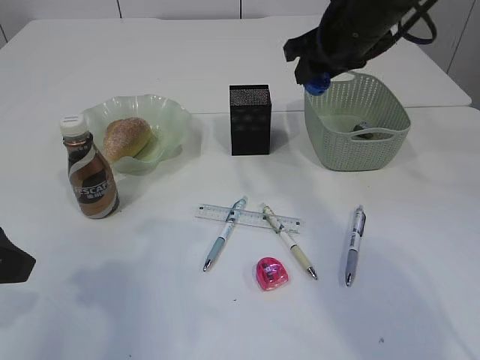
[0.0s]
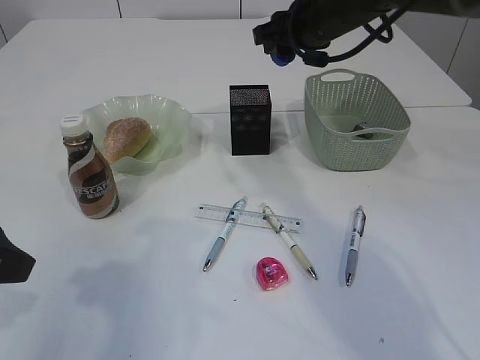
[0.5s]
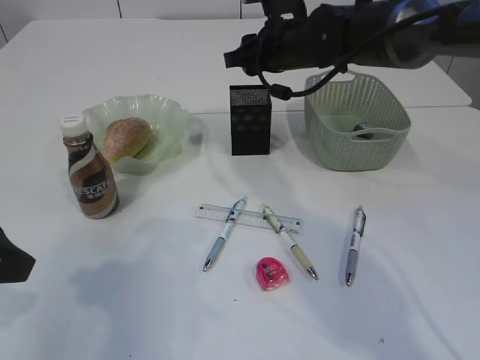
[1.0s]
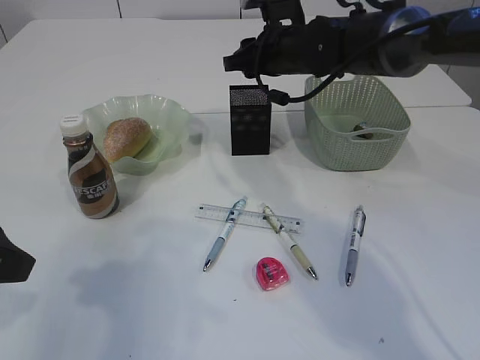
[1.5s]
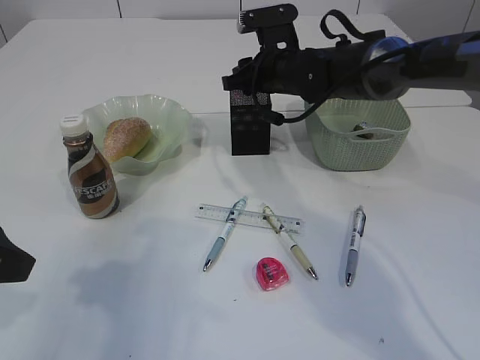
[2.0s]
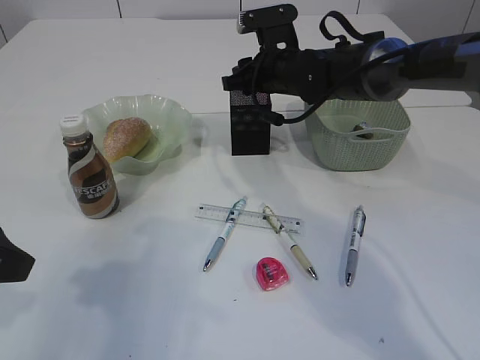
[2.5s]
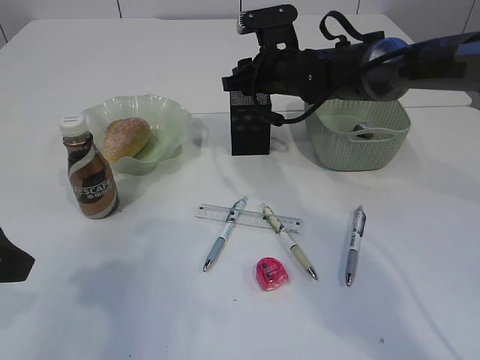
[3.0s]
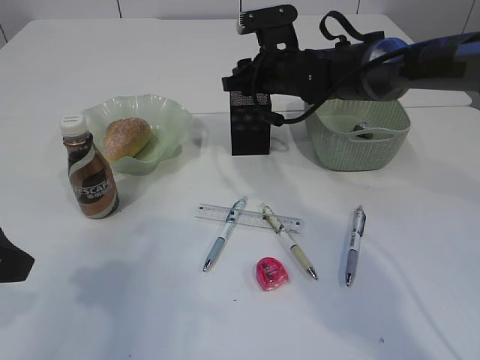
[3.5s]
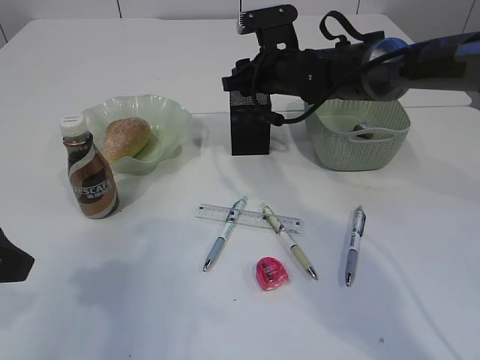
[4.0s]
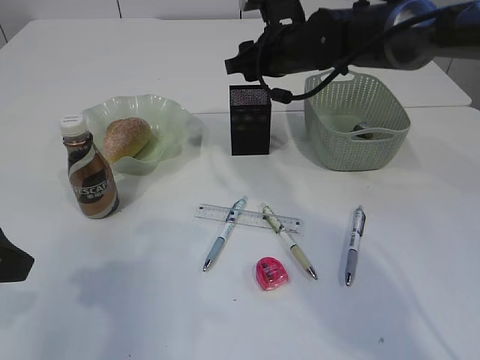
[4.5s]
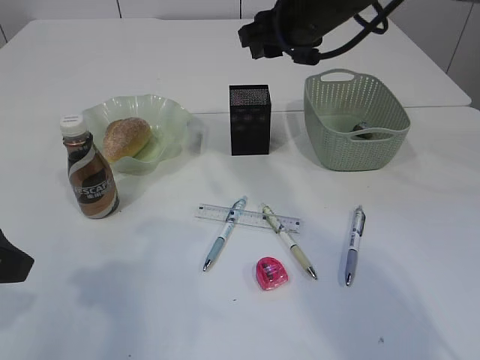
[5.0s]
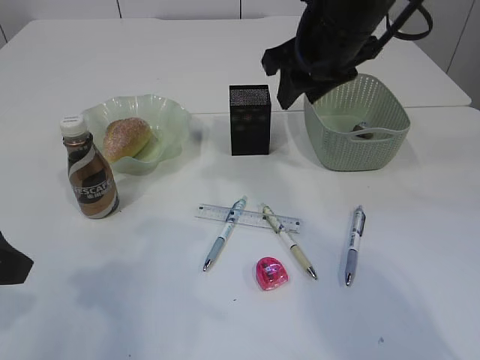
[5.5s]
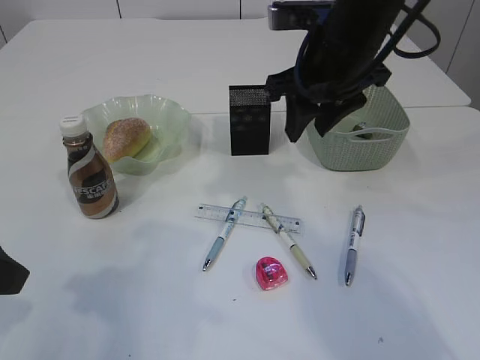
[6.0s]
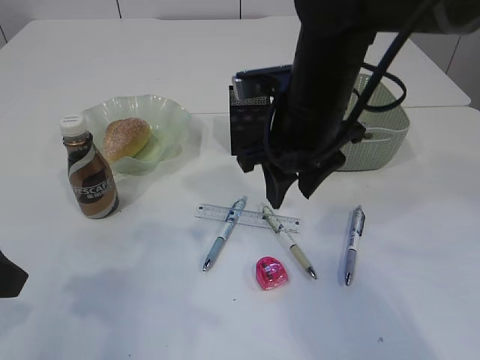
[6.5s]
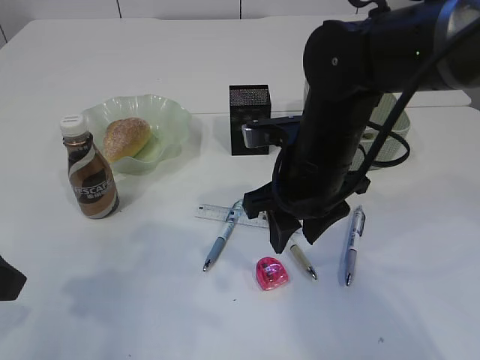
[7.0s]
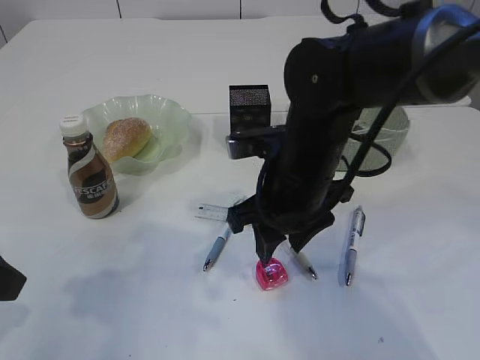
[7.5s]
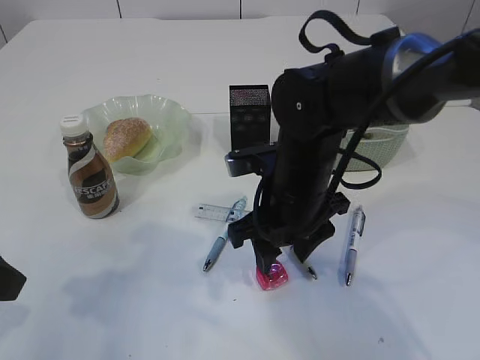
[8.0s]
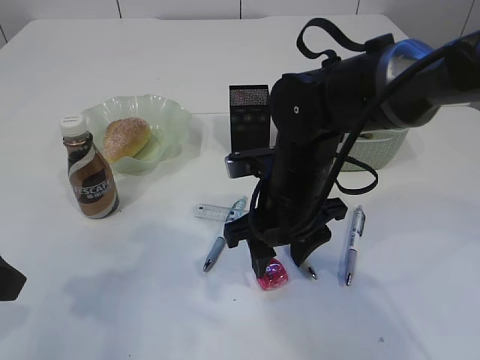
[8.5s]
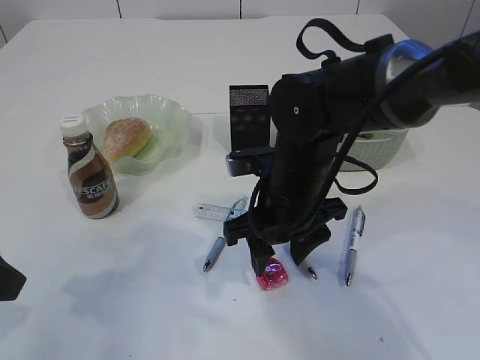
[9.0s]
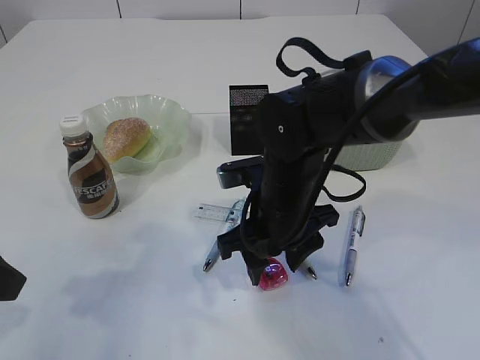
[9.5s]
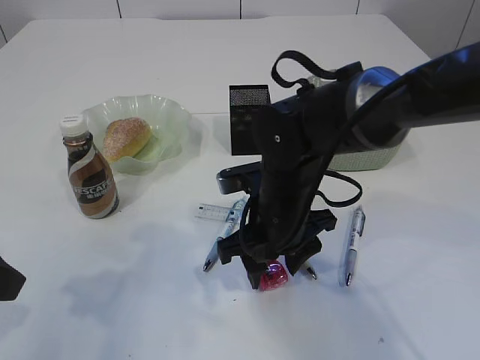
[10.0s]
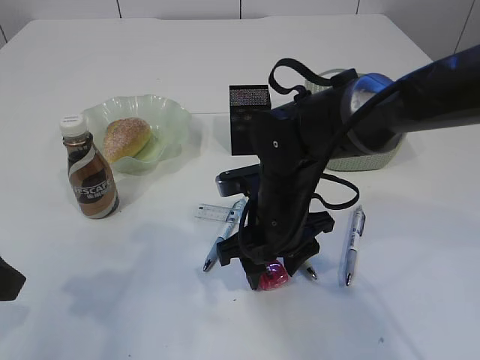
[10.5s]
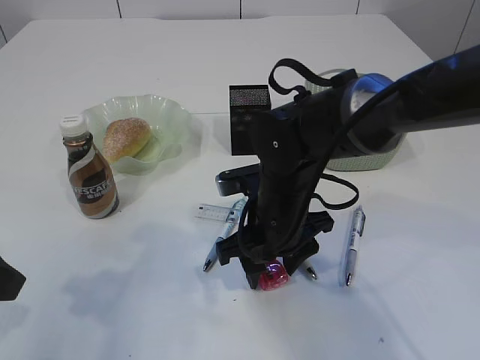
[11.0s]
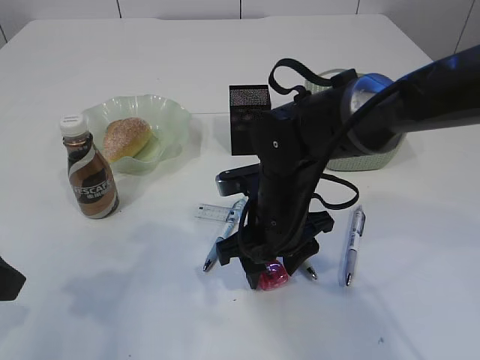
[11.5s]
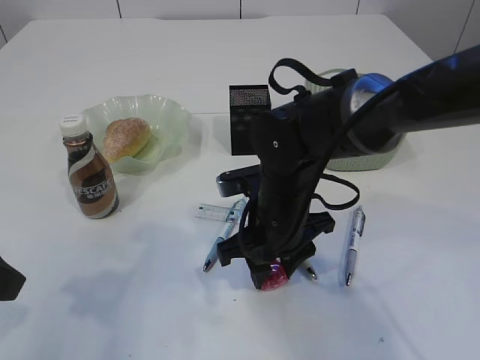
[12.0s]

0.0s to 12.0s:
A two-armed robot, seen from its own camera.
Step, 0.0s to 4.5s: Place the blue pencil sharpener into the pen holder.
0.0s to 2.0s: The right gripper moves downward, to the left and forward, approximately 15 cm.
2.0s to 4.0s: Neither gripper changes place.
4.0s to 6.0s: The right gripper is displaced backward and upward by roughly 15 cm.
6.0s to 8.0s: The right gripper goes some 15 cm downward, backward and to the left.
8.0s to 10.0s: The grippers stay close to where they were, moving slightly.
10.0s to 12.0s: Neither gripper changes place.

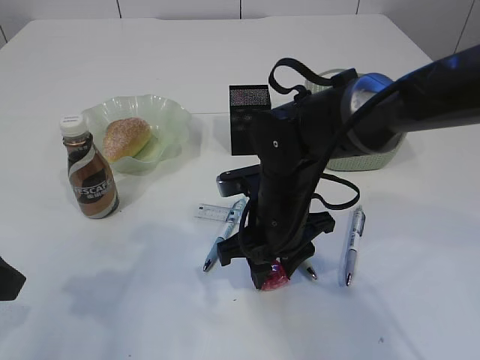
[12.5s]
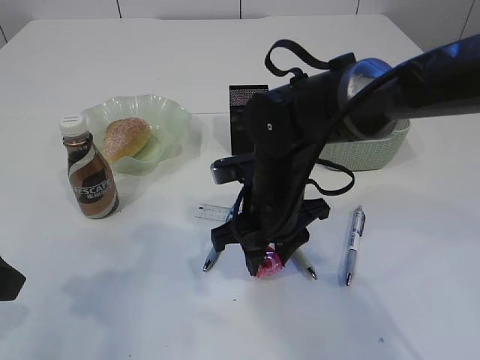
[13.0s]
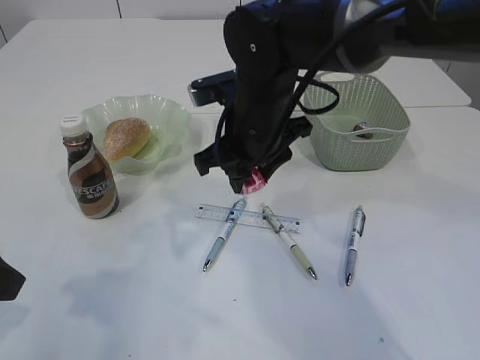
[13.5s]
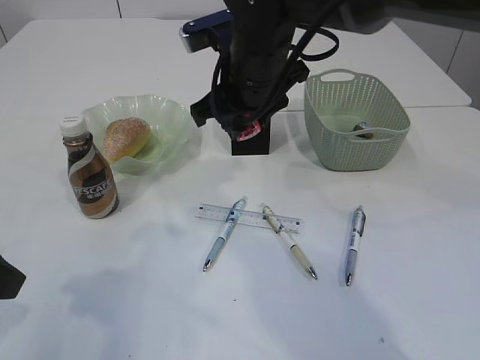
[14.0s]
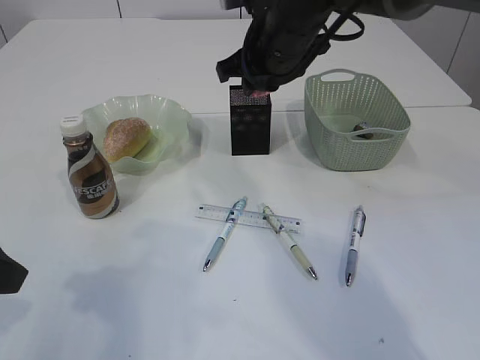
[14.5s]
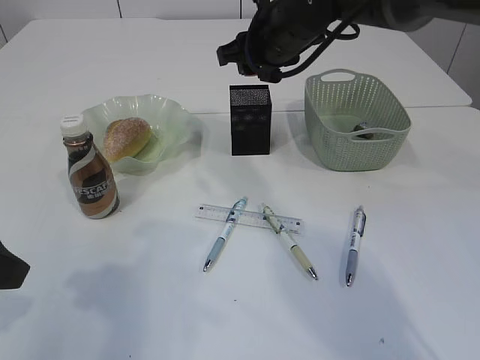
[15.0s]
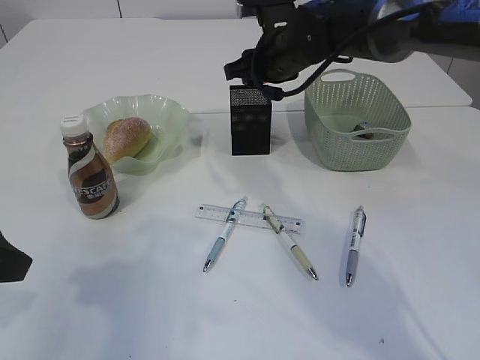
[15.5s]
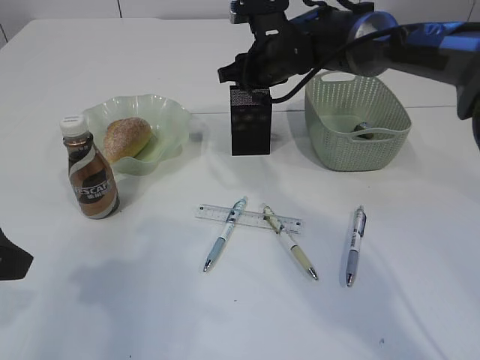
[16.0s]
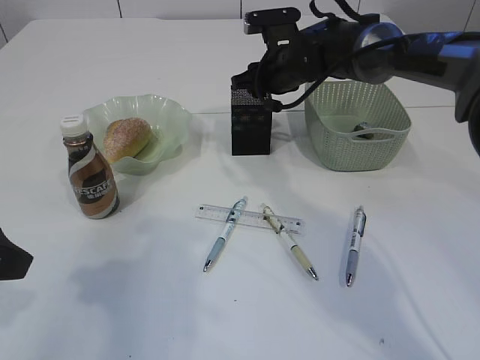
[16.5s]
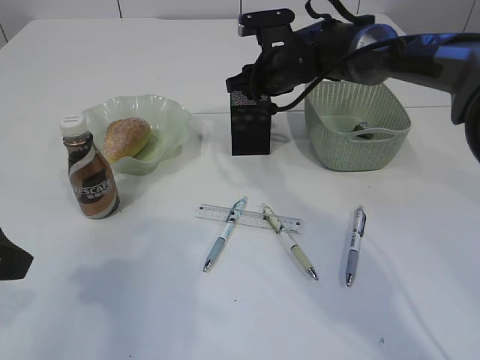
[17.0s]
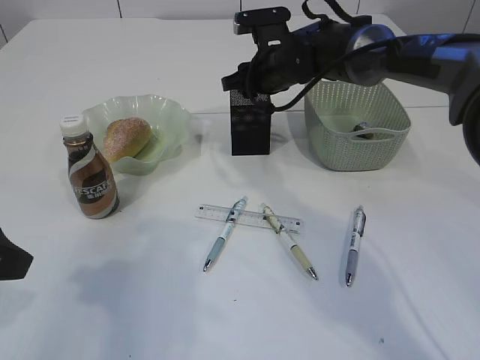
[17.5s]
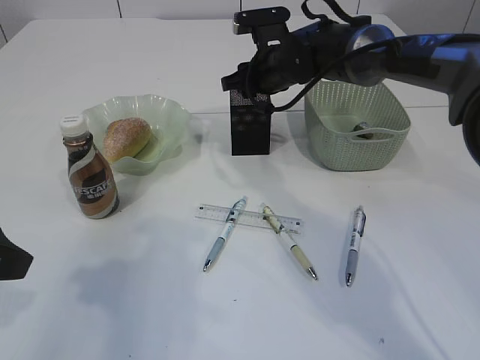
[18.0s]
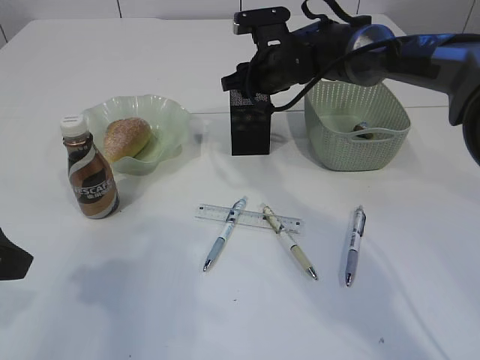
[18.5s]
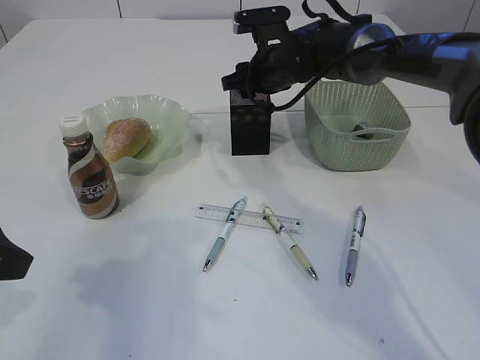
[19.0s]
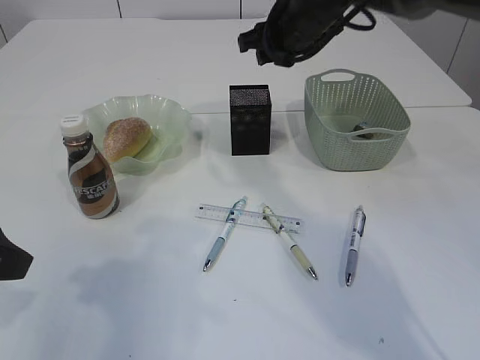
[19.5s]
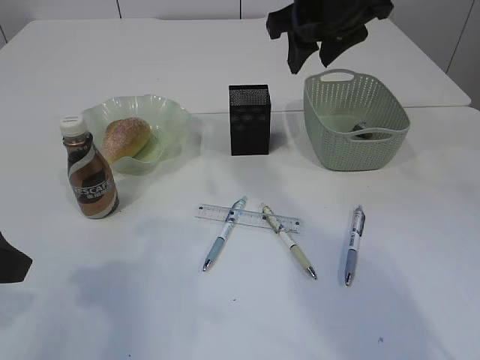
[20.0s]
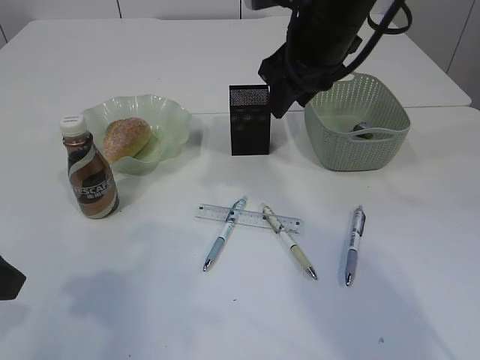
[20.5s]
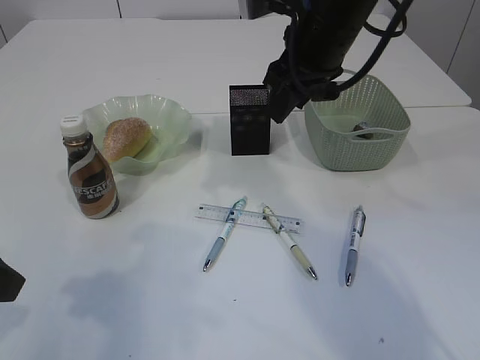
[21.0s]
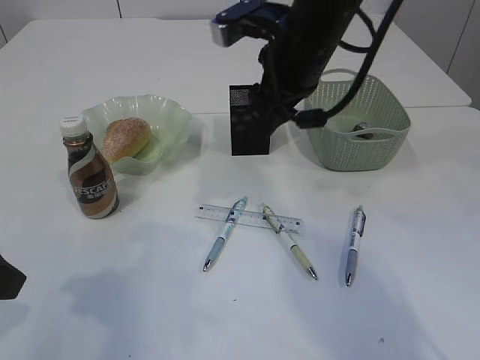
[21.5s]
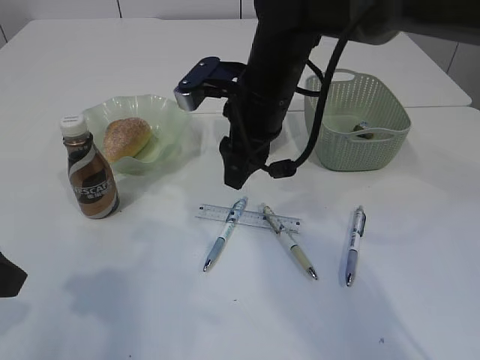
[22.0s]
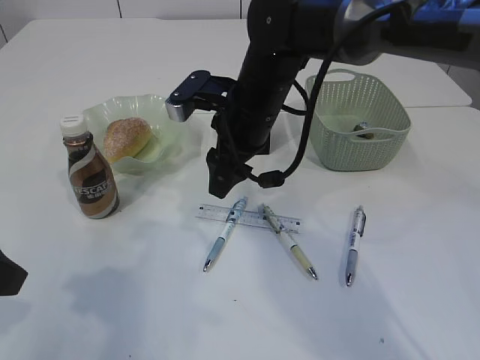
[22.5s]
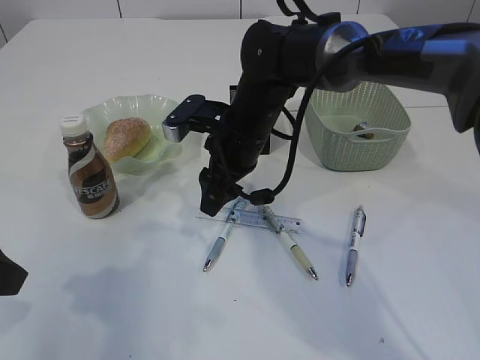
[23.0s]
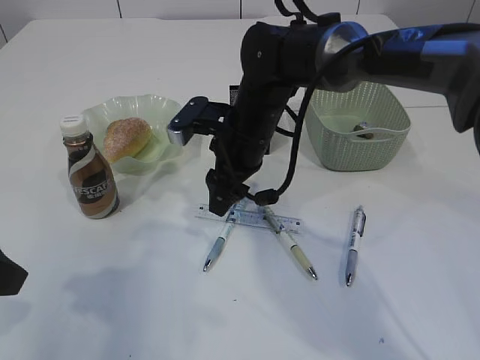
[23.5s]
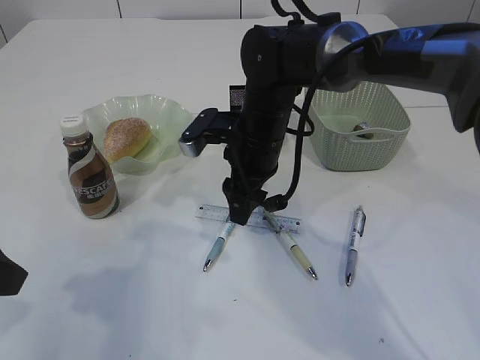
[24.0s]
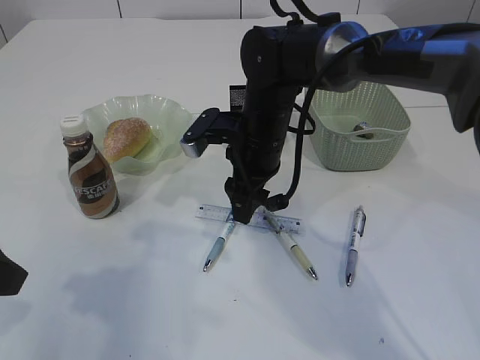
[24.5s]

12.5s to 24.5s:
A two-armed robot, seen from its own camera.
Step, 14.0s to 19.0s: Place the red pencil sharpener into the pen holder.
12.5s to 14.5s: The right gripper is displaced upward and forward by roughly 20 cm.
14.5s to 16.5s: The right gripper shifts some 10 cm forward and downward.
16.5s to 18.5s: The grippers make only small movements.
18.5s to 20.5s: The right gripper travels backward and upward by about 15 cm.
20.5s to 22.5s: The right gripper heads downward and to the left, covering about 10 cm.
22.5s to 24.5s: The grippers stay close to where they were, moving slightly.

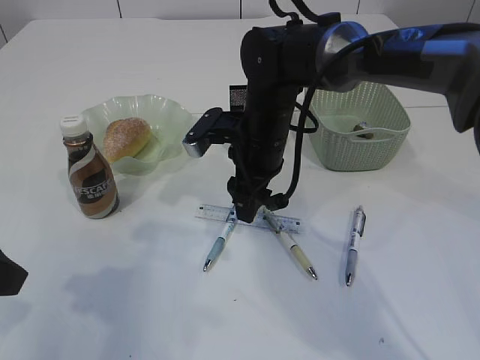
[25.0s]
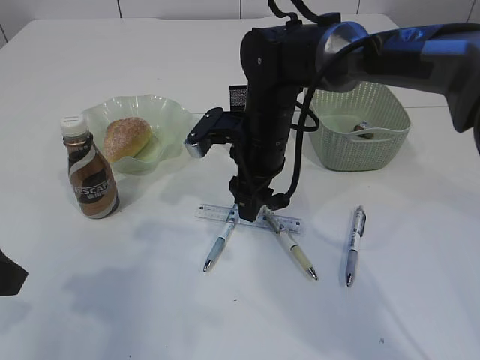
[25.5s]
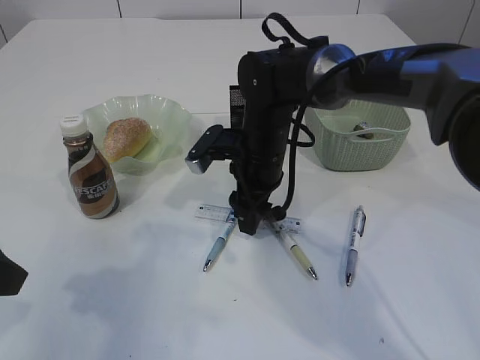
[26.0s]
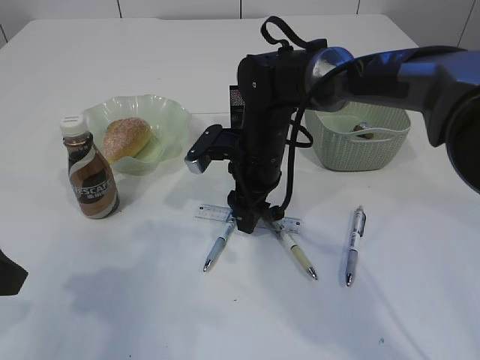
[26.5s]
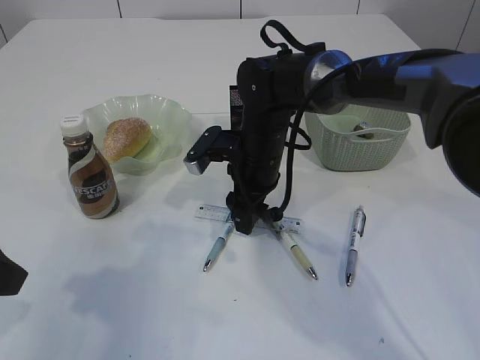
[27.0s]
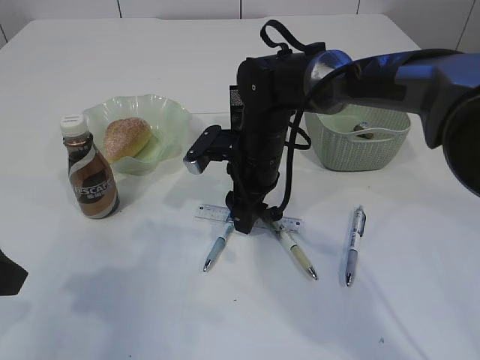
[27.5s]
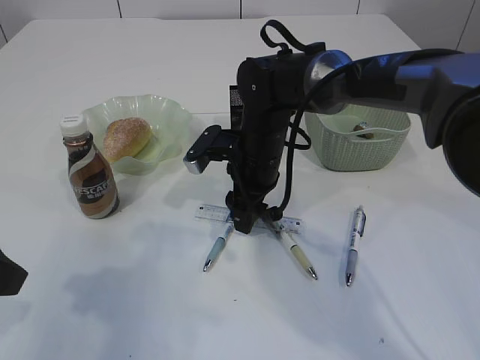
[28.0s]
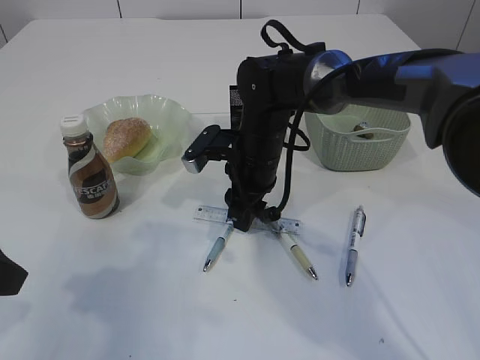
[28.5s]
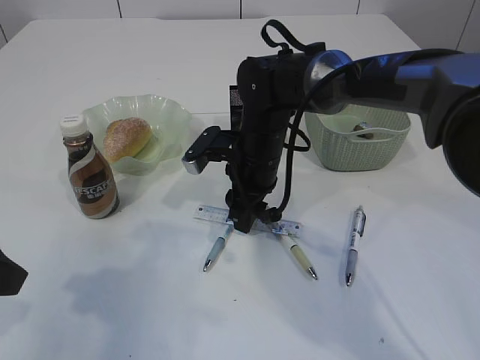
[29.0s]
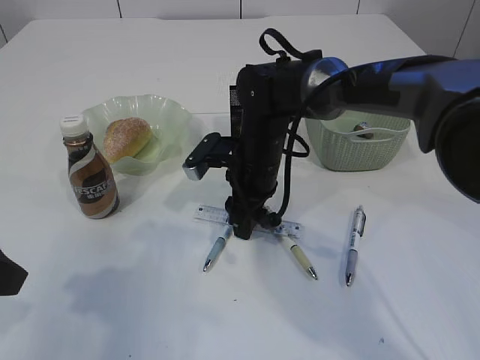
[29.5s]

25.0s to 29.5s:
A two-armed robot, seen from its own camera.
25.0s to 27.0s: The grippers make only small movements.
27.0s to 29.5s: Both grippers stay put.
